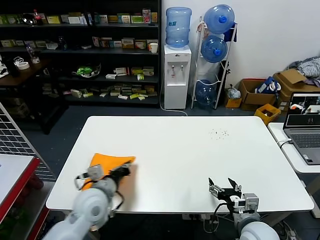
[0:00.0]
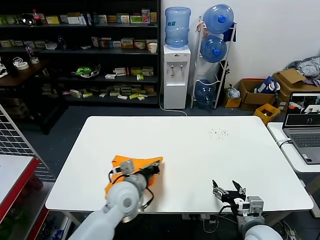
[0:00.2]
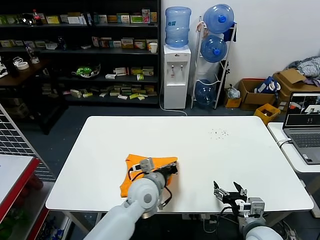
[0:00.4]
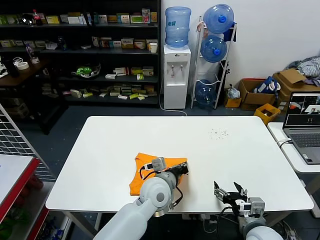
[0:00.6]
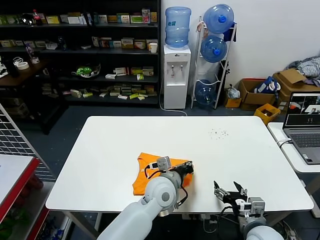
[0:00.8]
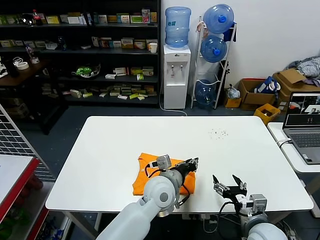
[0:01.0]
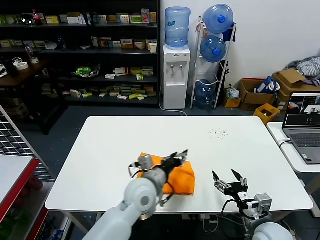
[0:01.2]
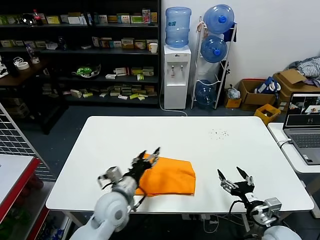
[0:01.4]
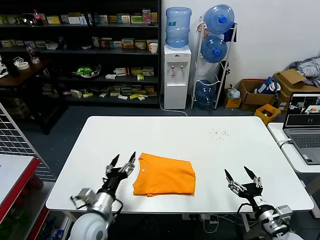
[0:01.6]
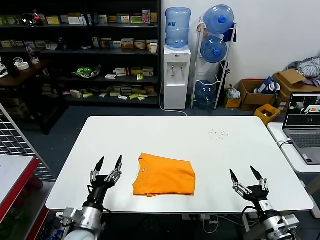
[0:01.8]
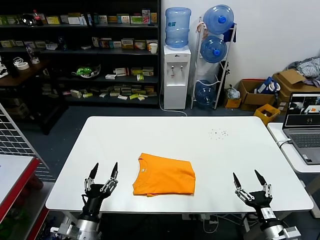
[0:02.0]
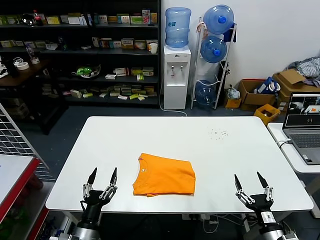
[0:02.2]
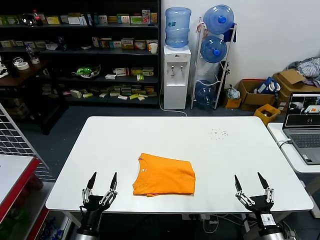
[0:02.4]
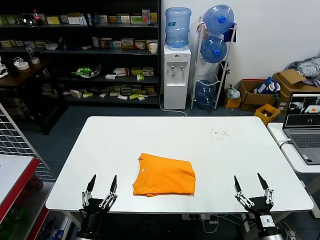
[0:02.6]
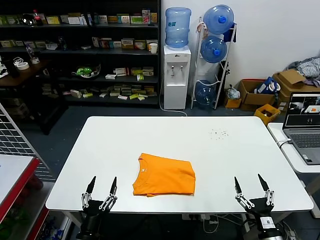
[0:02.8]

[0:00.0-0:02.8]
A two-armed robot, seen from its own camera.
Task of the whole recording: fold and organize the clothes.
0:00.0 to 0:01.4: The right gripper moves to the right, roughly 5 cm, while the left gripper shifts approximately 10 cm to the right, and opens up.
0:01.4 to 0:02.8: The right gripper travels backward and downward by approximately 10 cm. Meanwhile the left gripper shifts roughly 25 cm backward, to the left and downward.

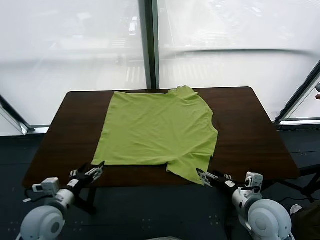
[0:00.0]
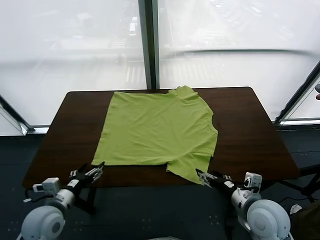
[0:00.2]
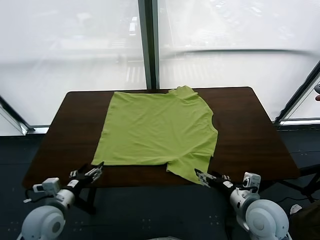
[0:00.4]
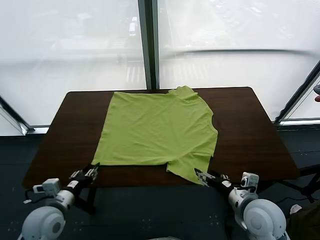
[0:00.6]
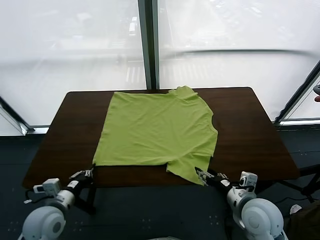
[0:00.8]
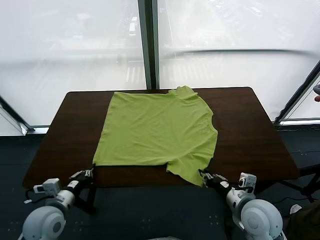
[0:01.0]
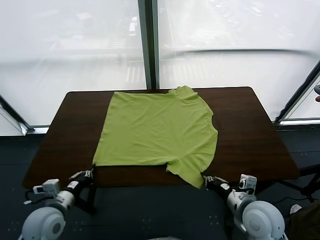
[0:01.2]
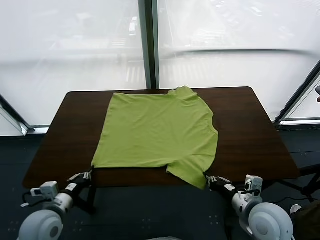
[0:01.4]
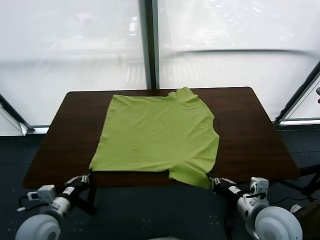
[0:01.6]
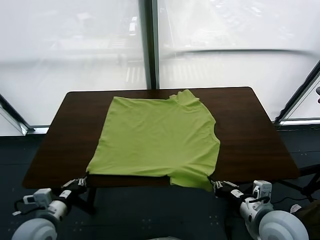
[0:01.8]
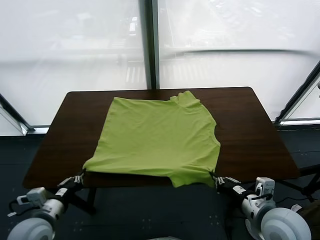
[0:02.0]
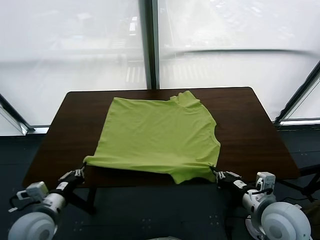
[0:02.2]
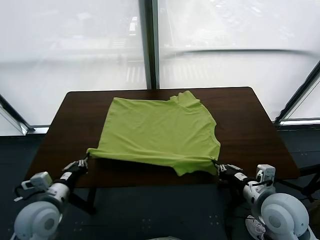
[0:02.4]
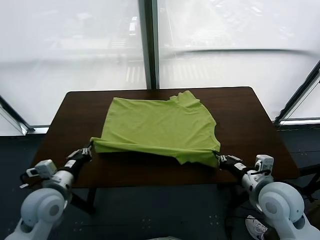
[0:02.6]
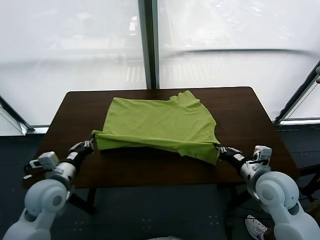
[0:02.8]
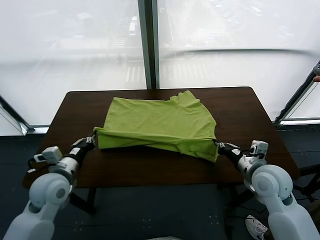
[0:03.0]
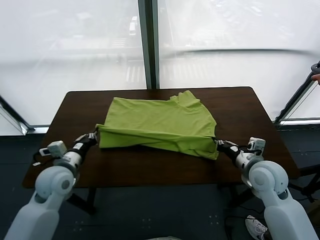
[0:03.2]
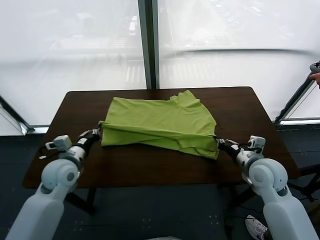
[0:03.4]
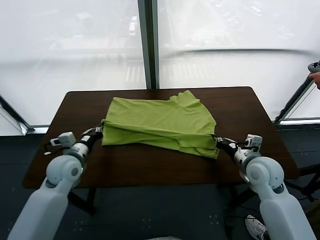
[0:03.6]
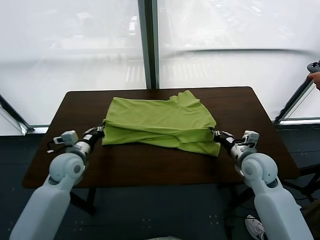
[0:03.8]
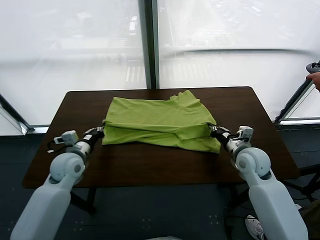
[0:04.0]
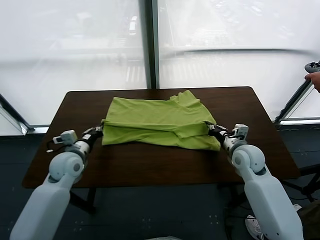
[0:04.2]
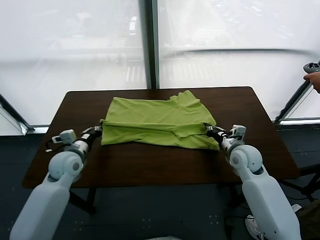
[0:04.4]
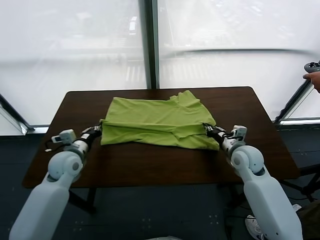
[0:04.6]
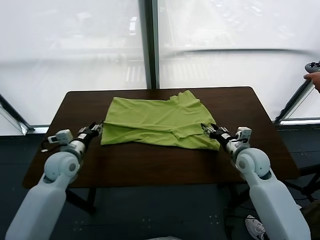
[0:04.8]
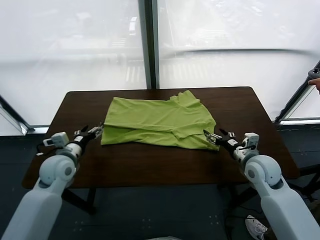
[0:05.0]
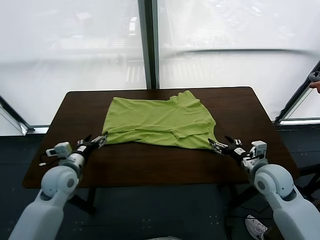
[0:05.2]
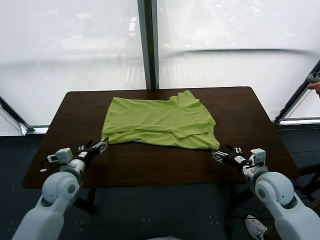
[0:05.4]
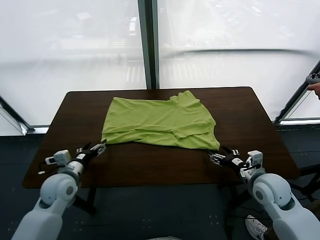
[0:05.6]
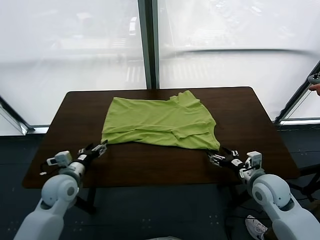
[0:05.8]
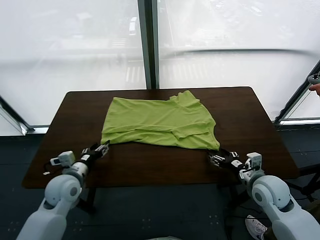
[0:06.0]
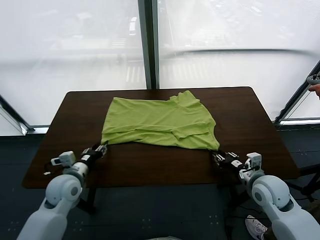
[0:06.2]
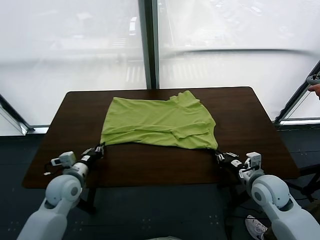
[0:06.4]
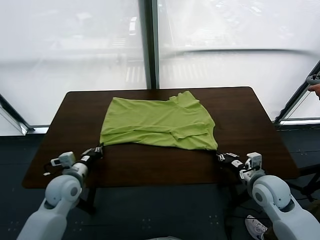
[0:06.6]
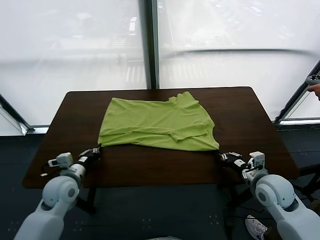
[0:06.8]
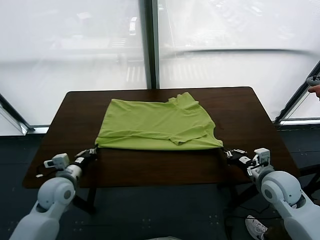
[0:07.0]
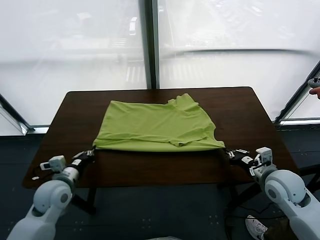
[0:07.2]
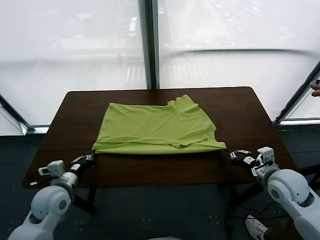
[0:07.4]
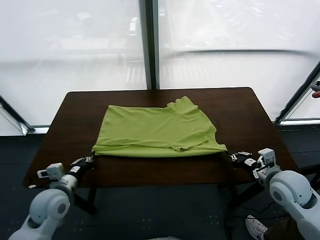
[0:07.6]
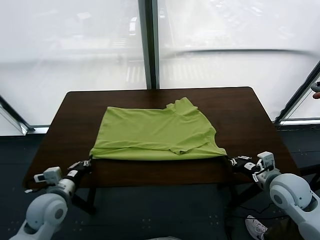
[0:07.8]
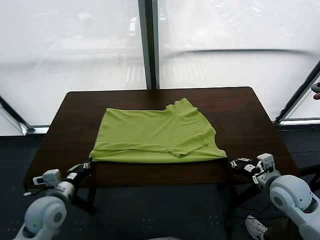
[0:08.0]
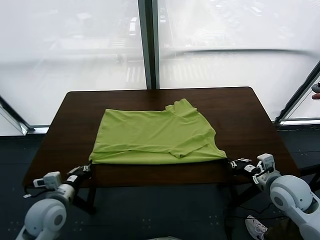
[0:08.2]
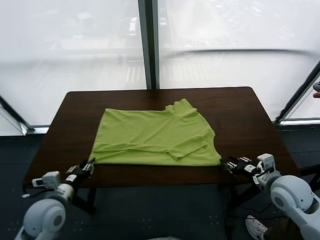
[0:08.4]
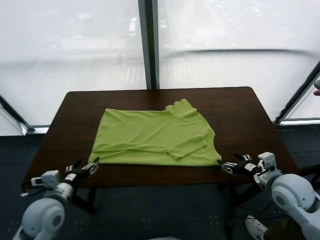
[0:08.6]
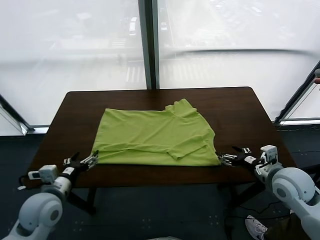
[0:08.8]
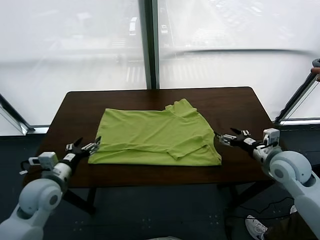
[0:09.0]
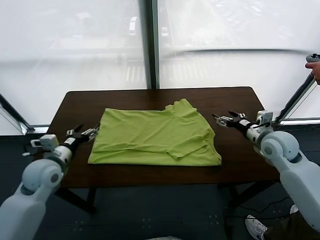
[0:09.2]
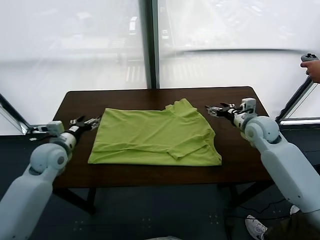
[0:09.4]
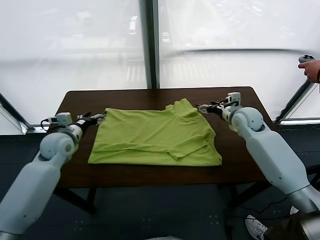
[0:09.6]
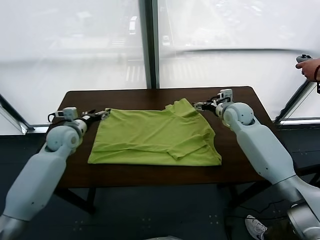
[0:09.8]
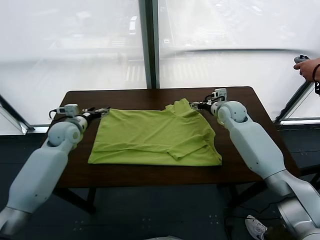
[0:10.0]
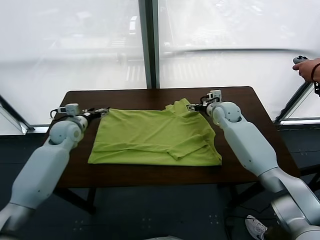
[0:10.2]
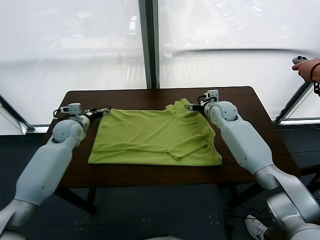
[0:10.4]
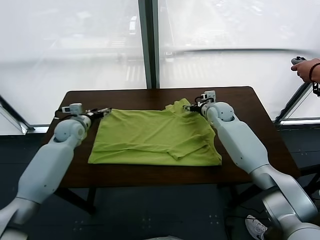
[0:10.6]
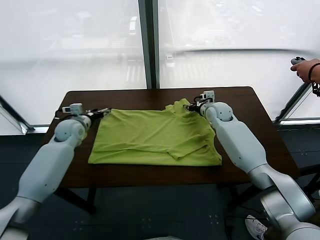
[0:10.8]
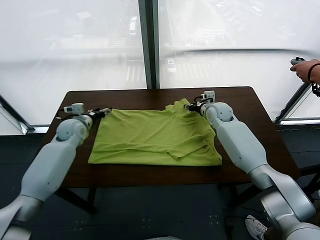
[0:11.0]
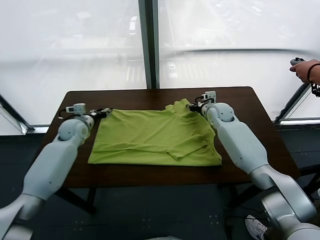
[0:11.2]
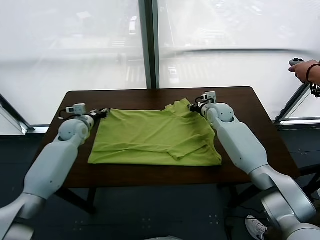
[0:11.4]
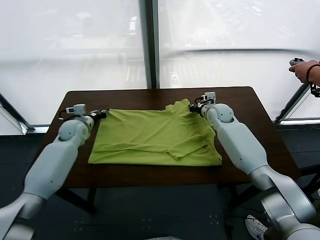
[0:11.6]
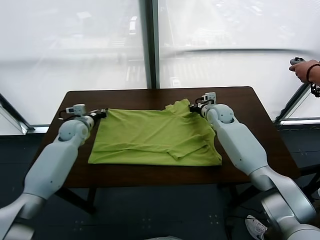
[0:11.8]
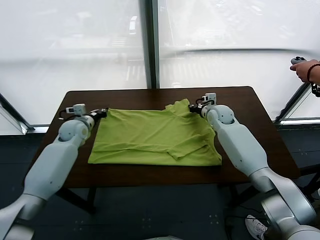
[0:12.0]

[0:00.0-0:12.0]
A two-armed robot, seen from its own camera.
Task of the whole recording: fold and organize the clothes.
Step, 0:00.0 to 0:01.2: use both grippers simultaneously to clamp the lower edge of the clothing fabric.
Step, 0:01.4 to 0:04.8: use both grippers to drag the lower edge of the fabric forward and fold it over the upper edge.
Step, 0:05.0 to 0:08.4: Drag the clothes downward with both gripper.
0:01.6 to 0:03.0: Both grippers move forward, some 15 cm.
0:03.0 to 0:04.4: The left gripper shifts about 5 cm forward; the right gripper opens.
0:04.4 to 0:06.0: The two grippers go some 10 cm backward. The right gripper closes; the left gripper opens.
0:06.0 to 0:07.6: The right gripper moves roughly 5 cm; the left gripper is displaced backward by some 5 cm, and closes.
0:07.6 to 0:09.0: The right gripper is displaced forward by roughly 20 cm, and opens its fingers; the left gripper changes place by roughly 5 cm, and opens up.
0:09.0 to 0:10.4: The left gripper goes roughly 20 cm forward. Meanwhile the right gripper heads forward, to the left and downward, covering some 20 cm.
0:10.4 to 0:12.0: The right gripper closes up, while the left gripper closes its fingers.

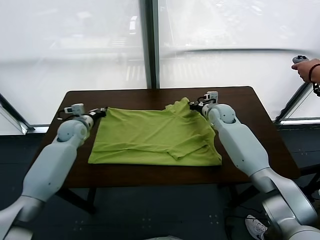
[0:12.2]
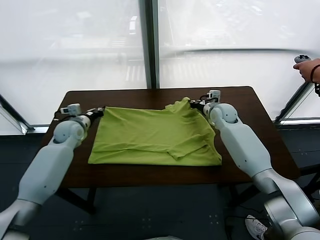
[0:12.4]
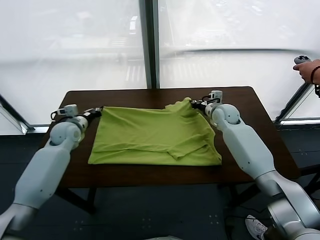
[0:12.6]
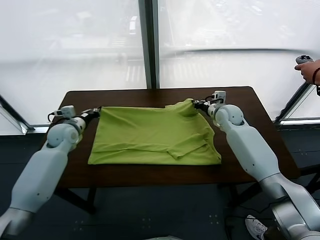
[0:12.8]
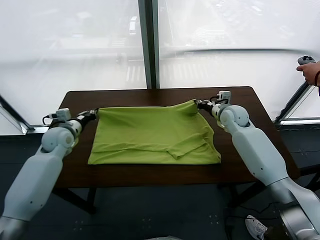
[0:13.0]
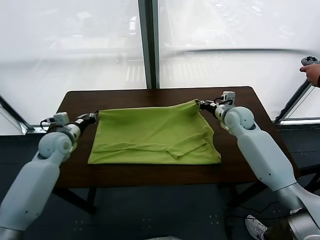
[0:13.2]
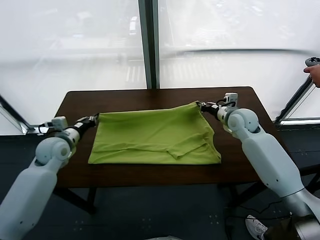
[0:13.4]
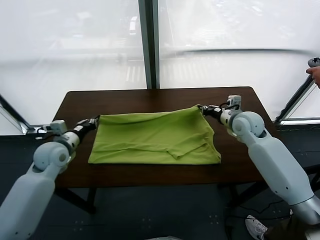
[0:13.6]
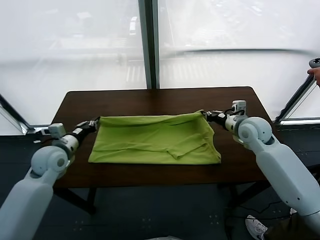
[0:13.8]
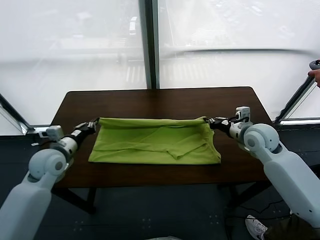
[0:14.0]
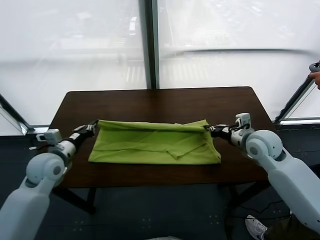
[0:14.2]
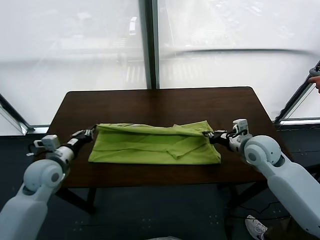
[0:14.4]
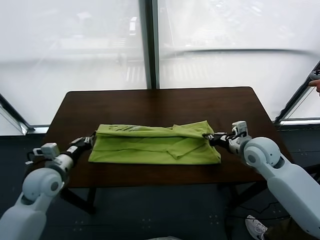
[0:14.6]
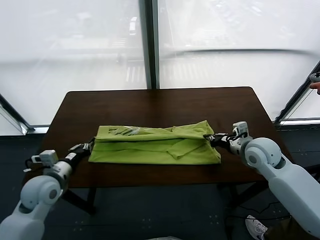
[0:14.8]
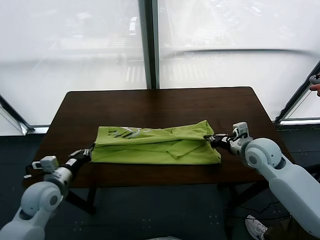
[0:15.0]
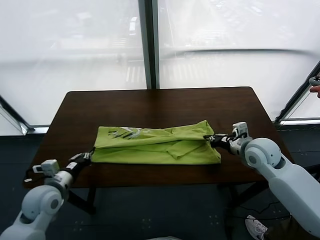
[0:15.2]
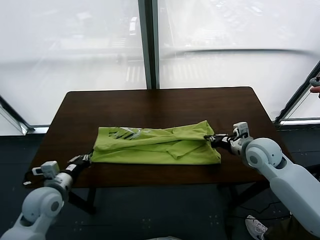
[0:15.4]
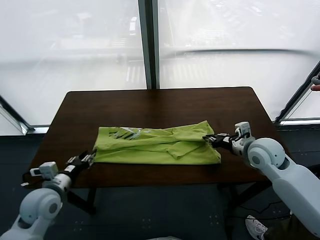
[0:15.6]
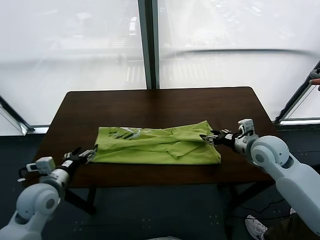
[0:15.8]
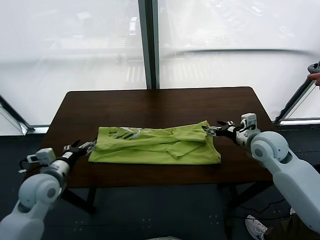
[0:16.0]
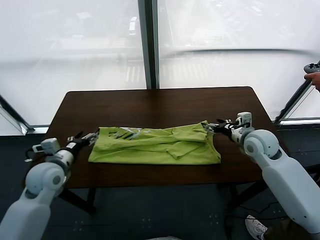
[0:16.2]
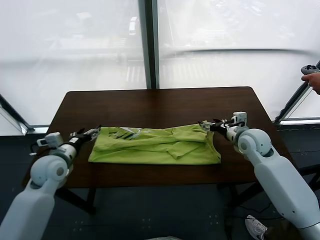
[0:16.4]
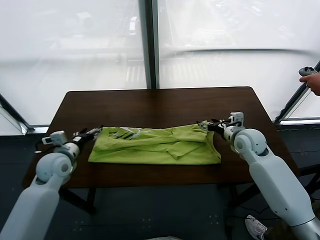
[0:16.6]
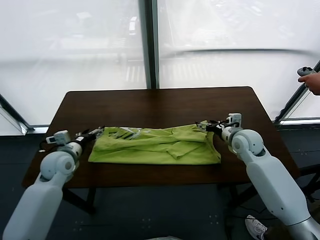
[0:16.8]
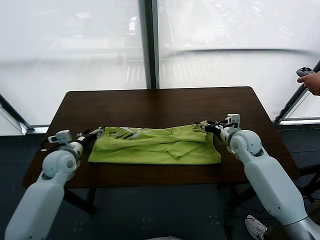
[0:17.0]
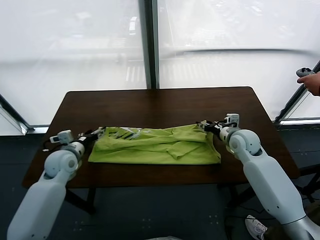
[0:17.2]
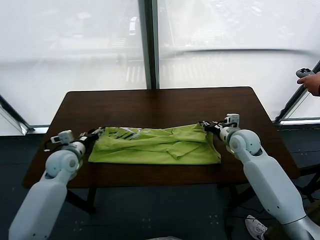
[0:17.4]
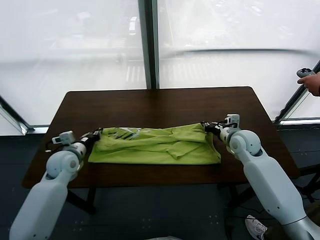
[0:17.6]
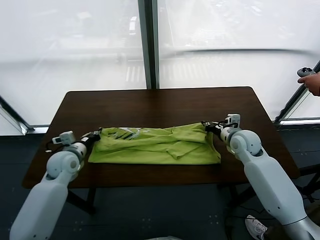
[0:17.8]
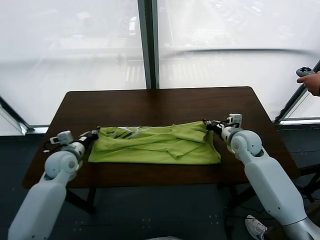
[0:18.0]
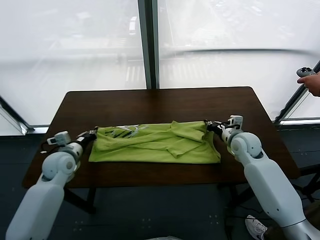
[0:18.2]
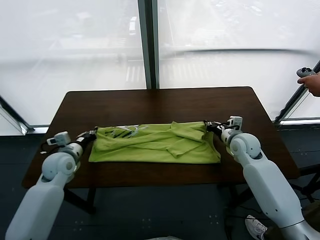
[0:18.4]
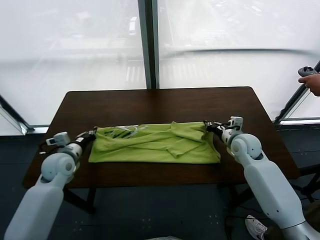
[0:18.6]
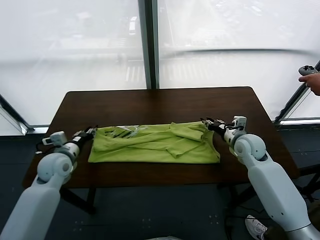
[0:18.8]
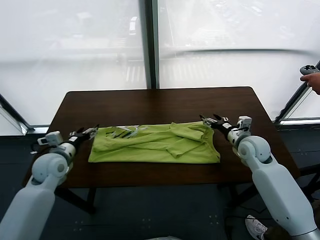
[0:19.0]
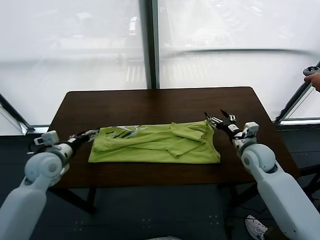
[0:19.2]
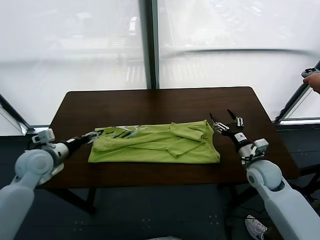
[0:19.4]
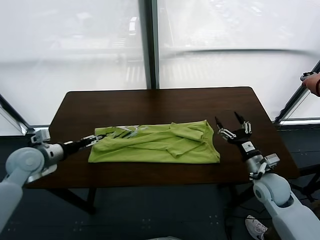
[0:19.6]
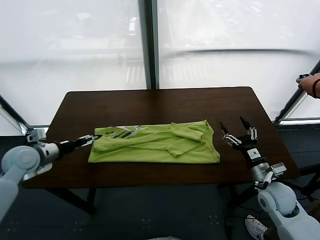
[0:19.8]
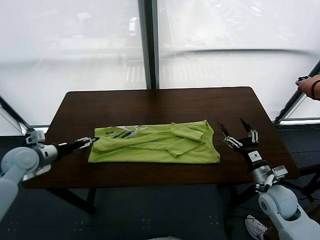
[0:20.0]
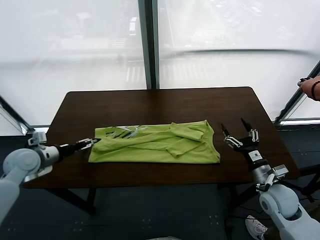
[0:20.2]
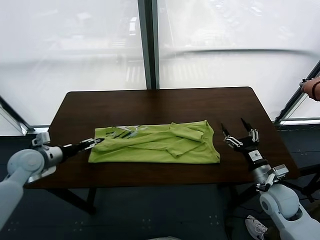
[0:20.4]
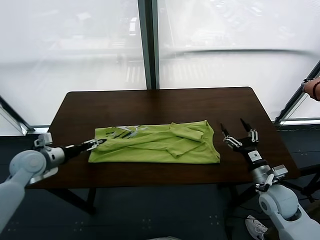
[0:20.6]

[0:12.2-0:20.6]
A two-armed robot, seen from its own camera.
Task of the whole recording: fold and organize the clothes.
Step, 0:12.2 to 0:15.8: use both grippers to drag the upper edge of the fabric backward and fold it over the lower edge.
0:12.2 to 0:13.6: The left gripper shifts roughly 10 cm backward, while the right gripper travels backward, to the right and upward by approximately 15 cm.
0:13.6 to 0:15.0: The right gripper is displaced backward by some 5 cm. The left gripper shifts roughly 10 cm backward.
0:15.0 to 0:16.4: The grippers both shift forward by roughly 5 cm. The left gripper opens up. Meanwhile the right gripper opens up.
0:16.4 to 0:17.8: The right gripper closes; the left gripper ends up roughly 5 cm from where it was, and closes up.
0:17.8 to 0:19.2: The right gripper goes roughly 10 cm backward, and opens; the left gripper shifts by about 5 cm, and opens its fingers.
0:19.2 to 0:20.6: The left gripper shifts roughly 5 cm to the left. The right gripper moves backward, roughly 10 cm.
